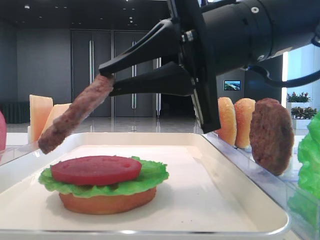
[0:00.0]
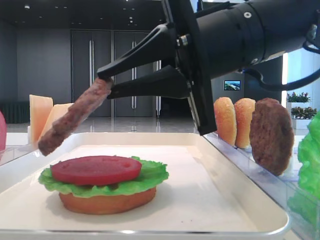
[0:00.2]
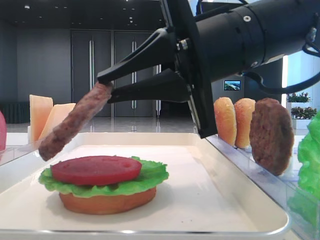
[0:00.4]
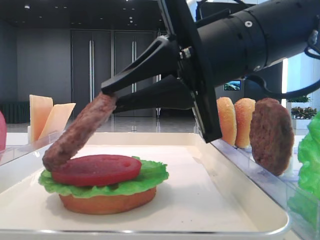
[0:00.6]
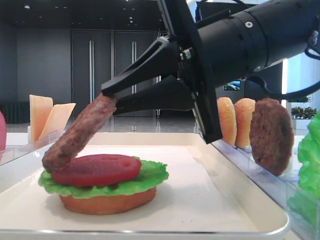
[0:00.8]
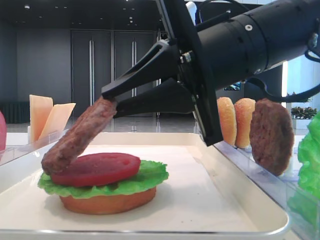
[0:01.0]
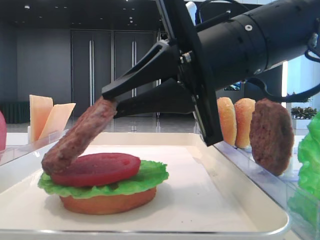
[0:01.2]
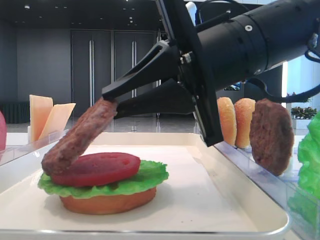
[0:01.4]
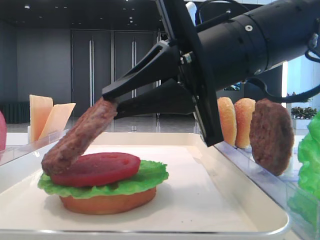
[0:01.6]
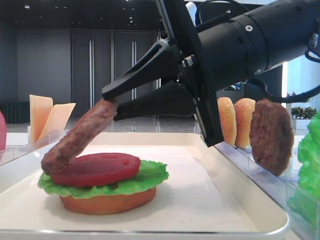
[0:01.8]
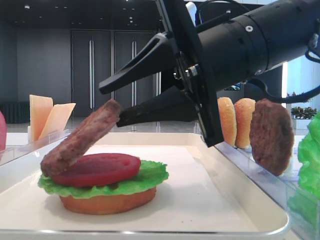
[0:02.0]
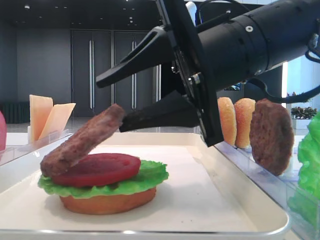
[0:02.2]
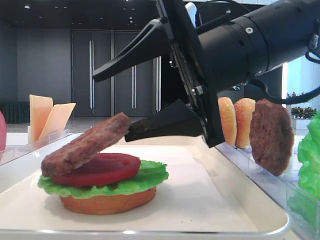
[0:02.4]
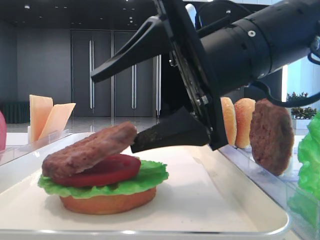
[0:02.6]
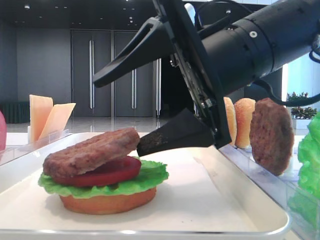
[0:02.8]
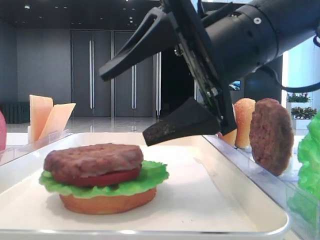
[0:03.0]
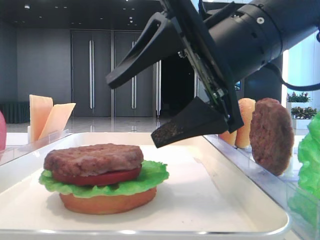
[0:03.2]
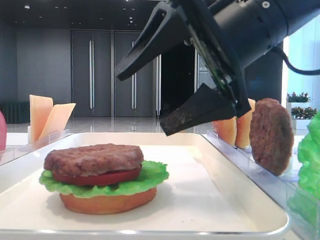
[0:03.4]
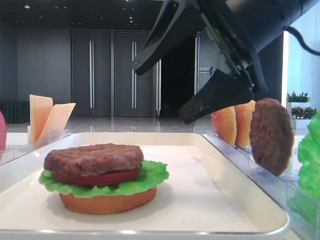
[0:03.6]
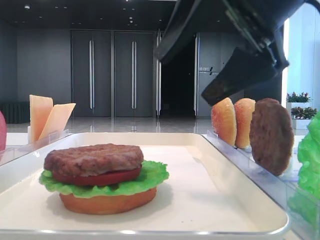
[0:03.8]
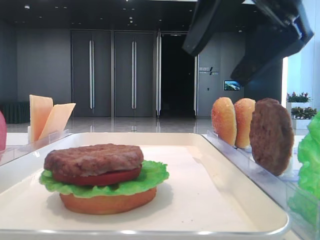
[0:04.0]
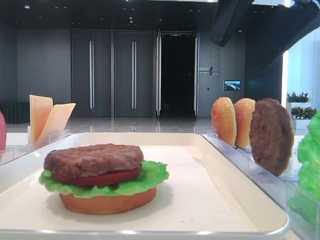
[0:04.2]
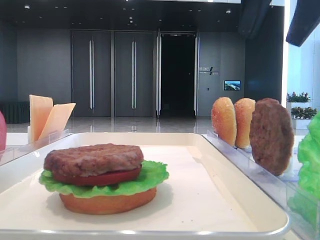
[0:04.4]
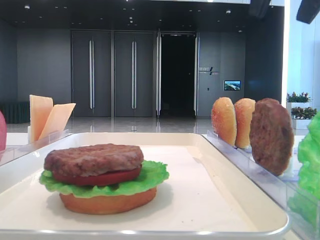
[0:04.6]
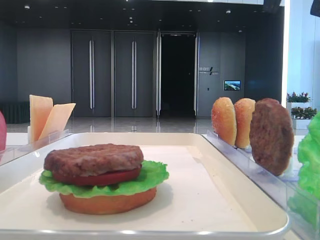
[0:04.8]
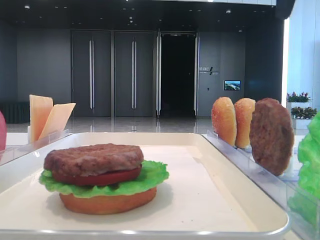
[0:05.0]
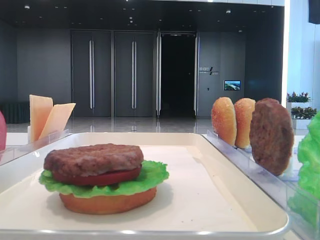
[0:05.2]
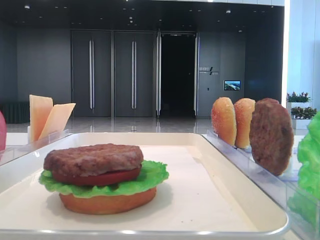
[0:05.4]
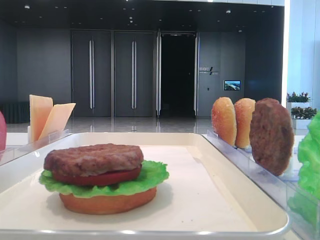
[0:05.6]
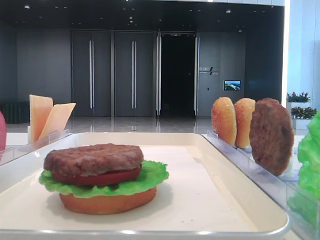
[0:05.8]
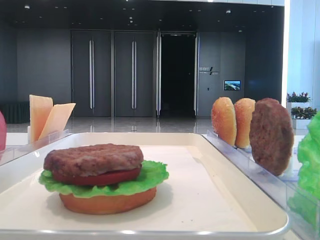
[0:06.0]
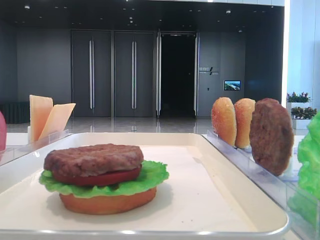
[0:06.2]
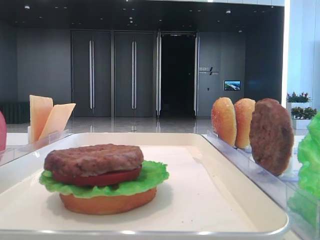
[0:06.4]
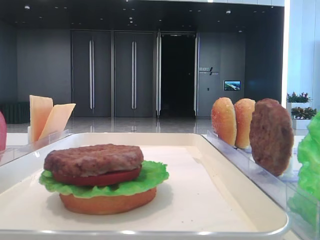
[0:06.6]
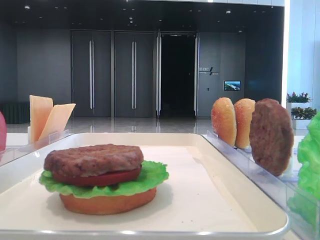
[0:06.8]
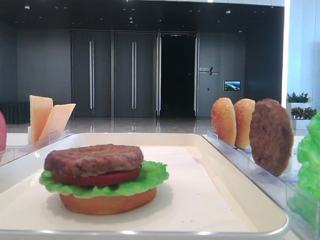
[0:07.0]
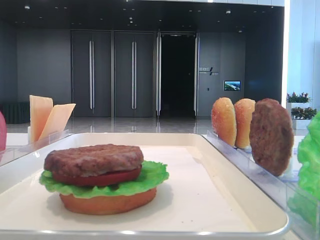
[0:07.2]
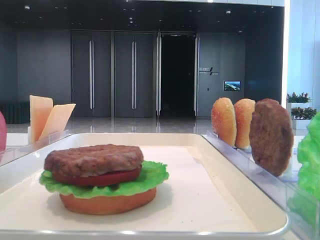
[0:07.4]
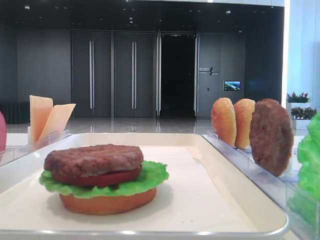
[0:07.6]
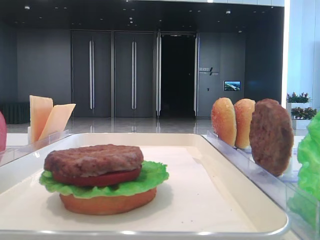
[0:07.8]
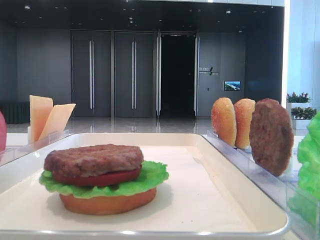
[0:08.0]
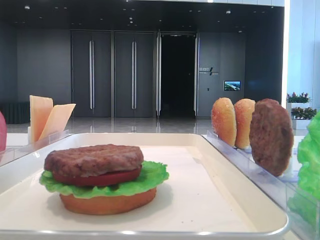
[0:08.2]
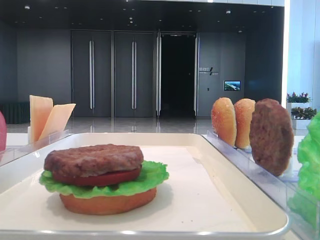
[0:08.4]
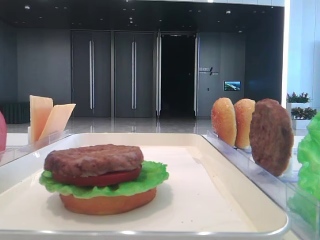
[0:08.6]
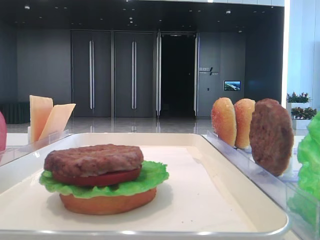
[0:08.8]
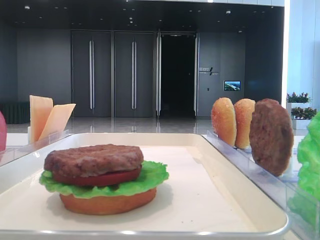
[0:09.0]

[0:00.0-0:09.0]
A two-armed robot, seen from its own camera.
Step, 0:00.0 to 0:02.8: Place the patty on the tomato slice with the right hand.
0:00.0 to 0:01.6: Both grippers stay about where they are.
0:01.6 to 0:03.0: The right gripper opens.
0:03.0 to 0:04.4: The right gripper shifts some 15 cm upward and to the right.
0:04.4 to 0:06.0: The right gripper shifts about 20 cm to the right and upward.

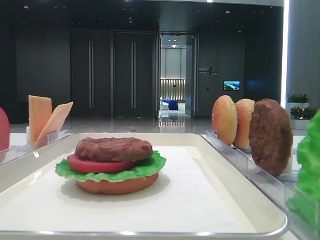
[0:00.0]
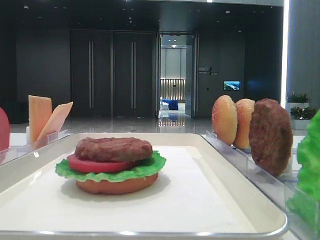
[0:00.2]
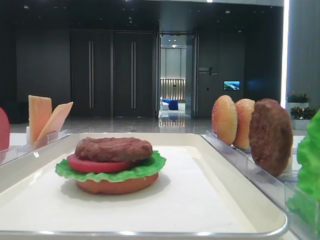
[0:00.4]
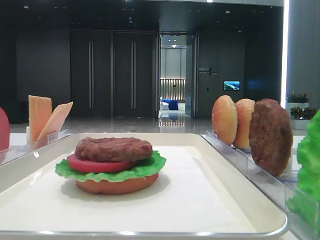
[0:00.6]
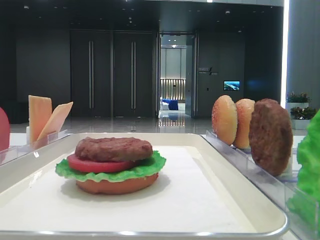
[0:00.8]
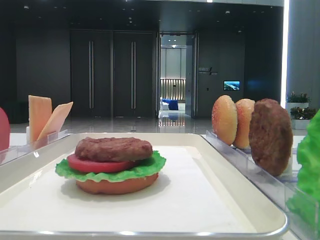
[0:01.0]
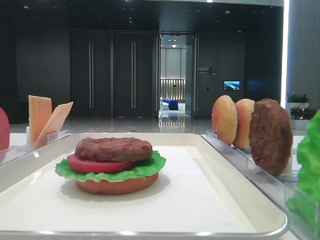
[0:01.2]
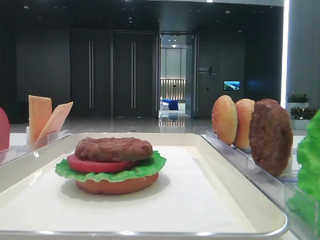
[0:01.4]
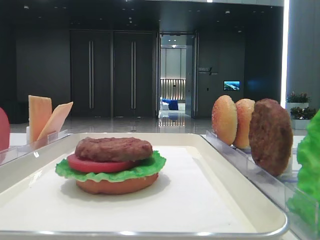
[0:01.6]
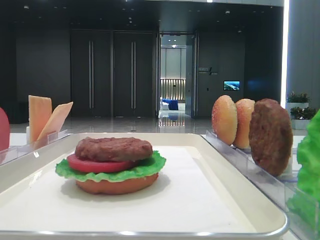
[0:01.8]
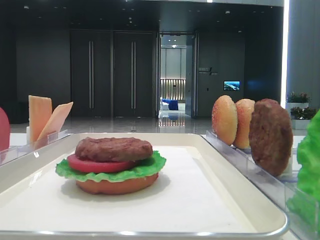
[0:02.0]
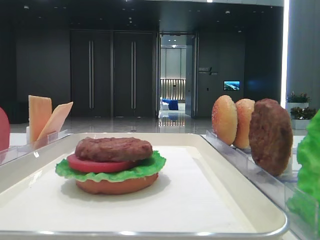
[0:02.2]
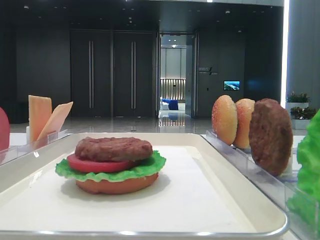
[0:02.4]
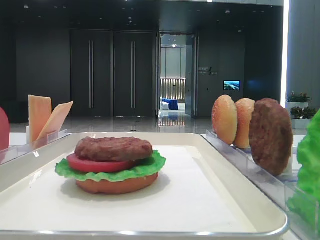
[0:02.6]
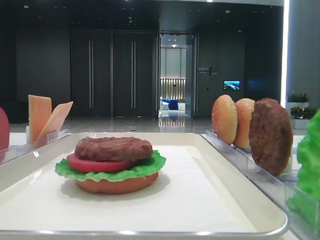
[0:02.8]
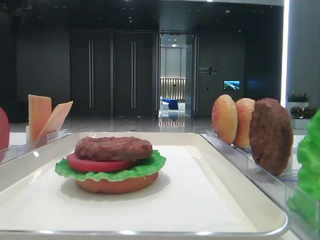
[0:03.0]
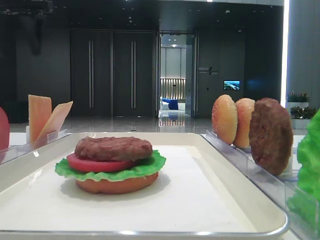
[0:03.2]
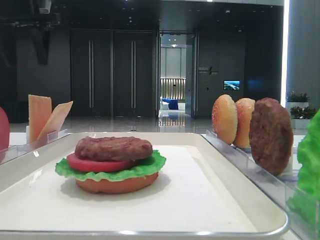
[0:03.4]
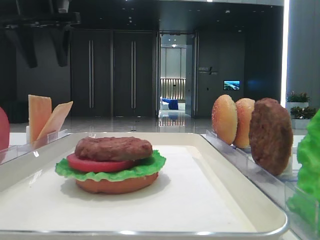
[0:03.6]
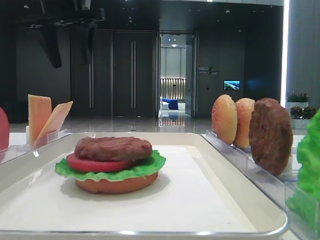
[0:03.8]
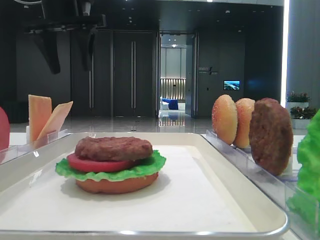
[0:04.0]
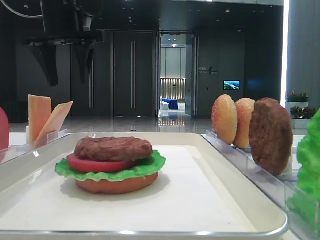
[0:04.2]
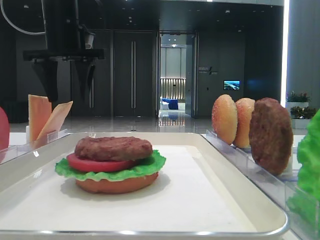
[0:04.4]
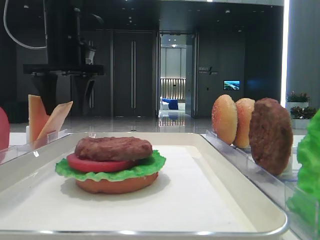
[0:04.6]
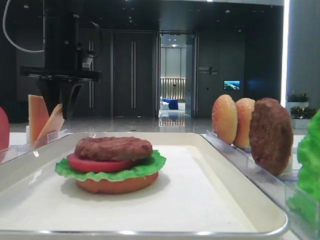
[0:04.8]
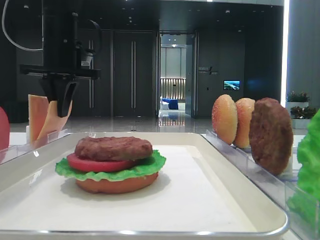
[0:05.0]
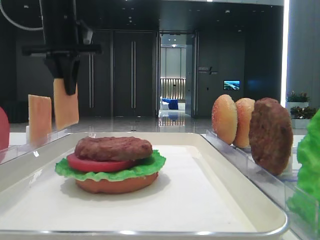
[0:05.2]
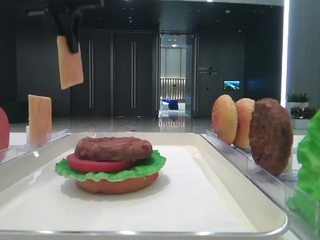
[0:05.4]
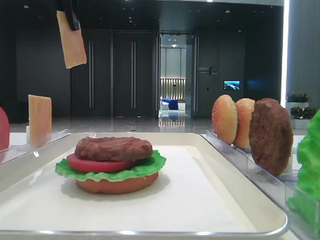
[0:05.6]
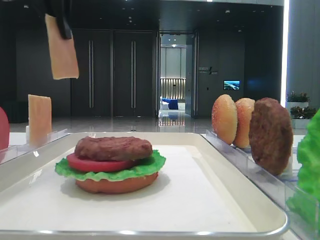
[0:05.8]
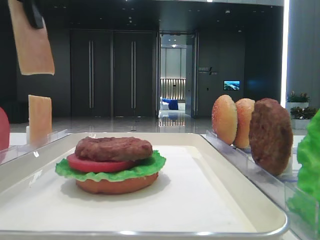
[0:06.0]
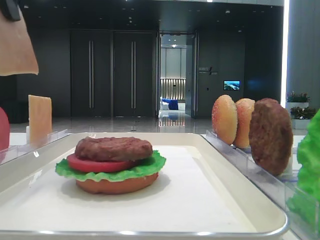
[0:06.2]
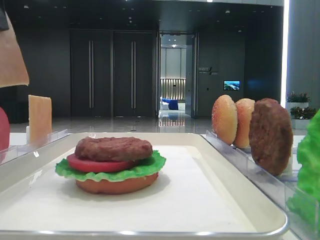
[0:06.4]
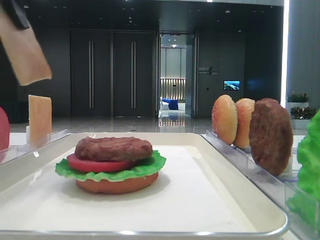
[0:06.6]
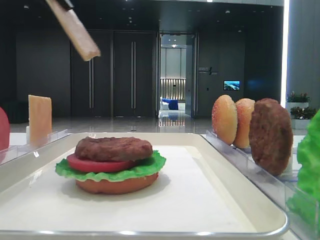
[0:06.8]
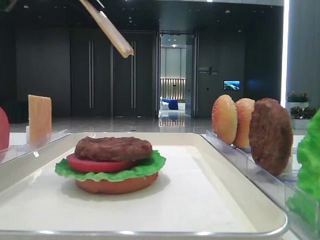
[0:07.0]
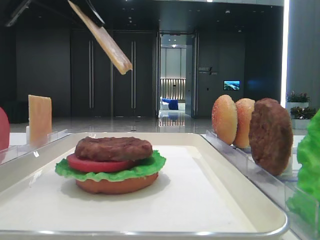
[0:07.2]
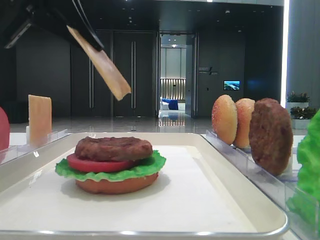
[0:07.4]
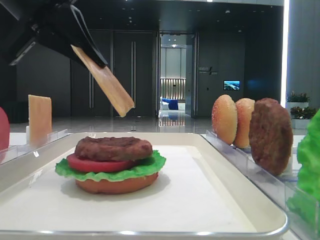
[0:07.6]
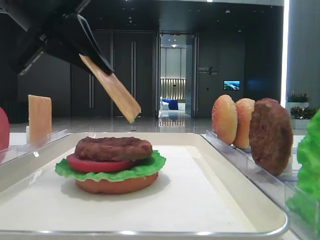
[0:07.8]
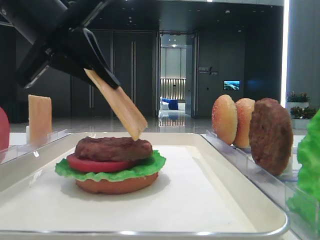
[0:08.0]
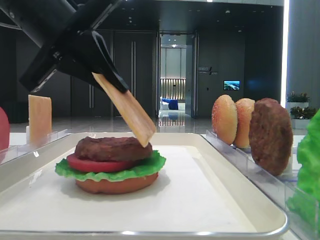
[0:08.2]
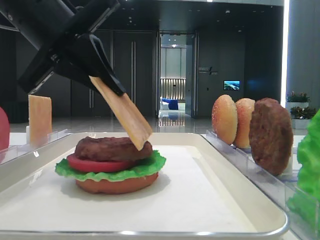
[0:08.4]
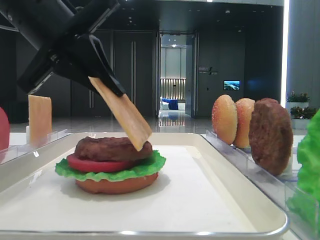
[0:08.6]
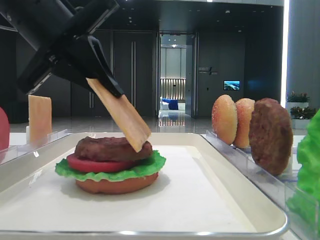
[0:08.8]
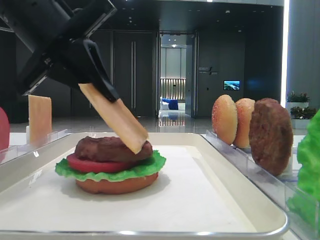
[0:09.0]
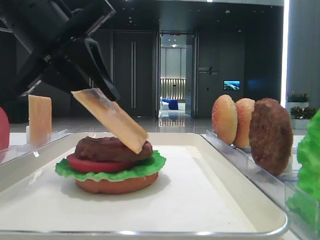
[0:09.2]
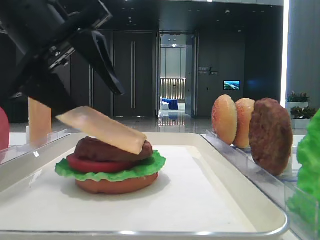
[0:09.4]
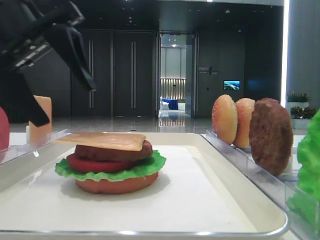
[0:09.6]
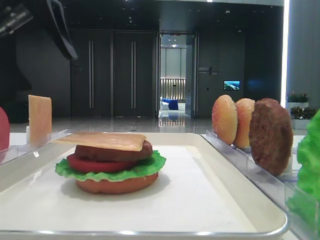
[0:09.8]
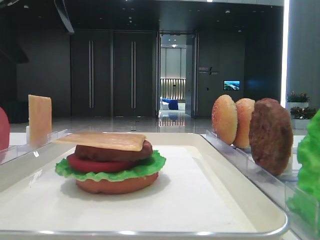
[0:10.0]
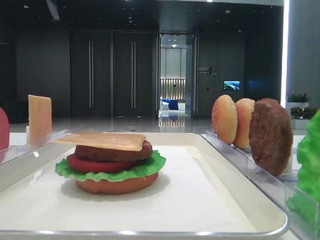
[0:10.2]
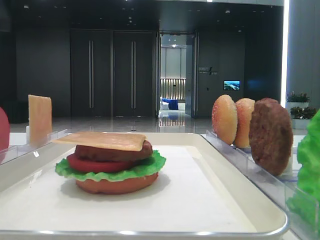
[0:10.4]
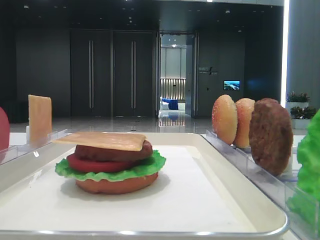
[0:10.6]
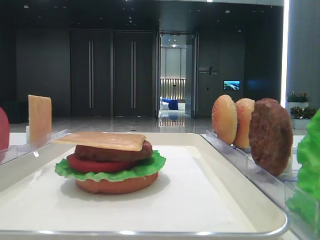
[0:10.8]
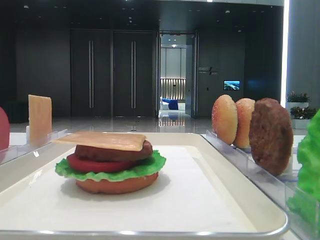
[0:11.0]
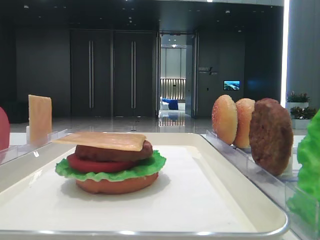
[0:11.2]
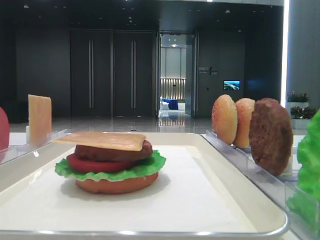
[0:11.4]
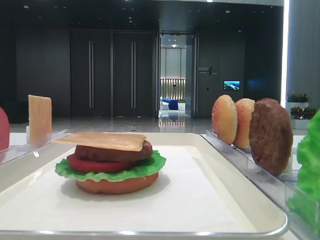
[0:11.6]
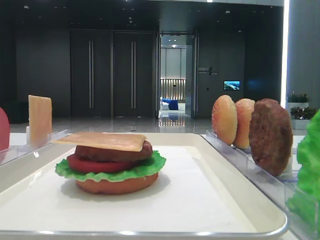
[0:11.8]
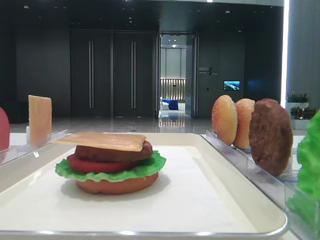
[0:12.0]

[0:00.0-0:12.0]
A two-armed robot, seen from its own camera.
Step, 0:00.0 to 0:05.0: Pick up the cheese slice with the left hand.
Step, 0:05.2 to 0:09.4: Place the cheese slice on the patty with the left hand.
0:01.6 to 0:03.0: The left gripper moves forward, approximately 40 cm.
0:03.0 to 0:04.4: The left gripper goes about 15 cm to the right and downward.
0:04.4 to 0:06.0: The left gripper heads backward and upward, covering about 15 cm, and closes.
0:06.0 to 0:07.6: The left gripper heads downward, covering roughly 10 cm.
0:07.6 to 0:09.0: The grippers stay close to where they were, moving slightly.
0:09.0 to 0:10.4: The left gripper travels upward and to the left by some 15 cm, and opens.
0:10.4 to 0:12.0: The left gripper goes roughly 20 cm backward.

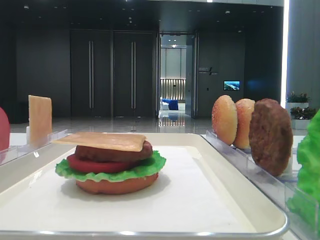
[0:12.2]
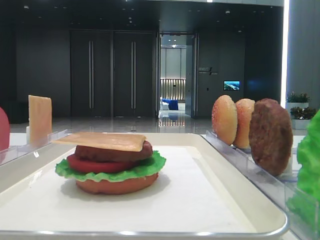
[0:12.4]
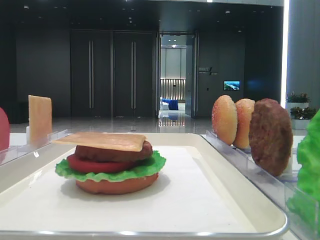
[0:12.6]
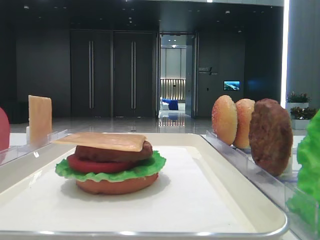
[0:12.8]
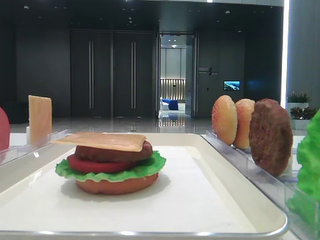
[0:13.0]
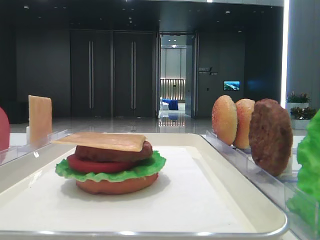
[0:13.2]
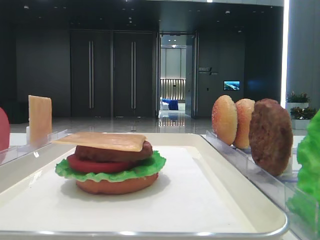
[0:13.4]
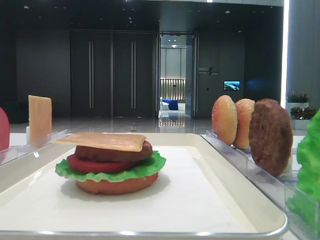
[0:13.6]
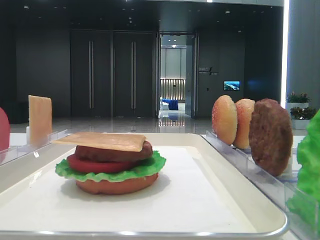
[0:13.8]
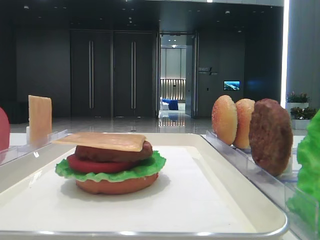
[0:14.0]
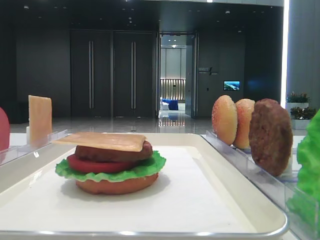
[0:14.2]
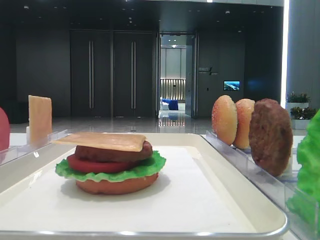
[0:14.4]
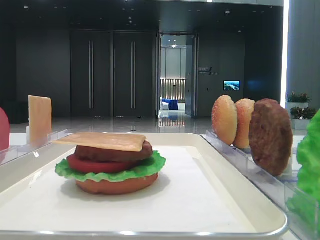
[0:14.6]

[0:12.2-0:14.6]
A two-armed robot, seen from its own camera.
0:13.4 to 0:14.6: Both grippers stay about where they are.
